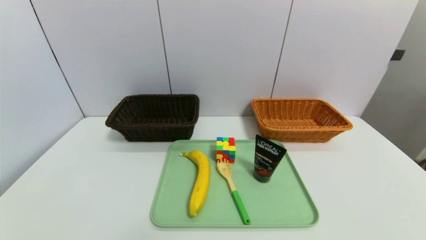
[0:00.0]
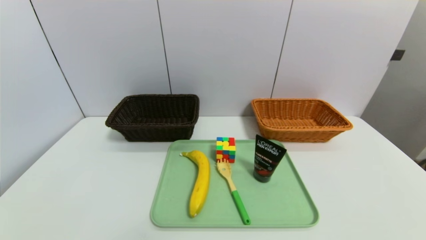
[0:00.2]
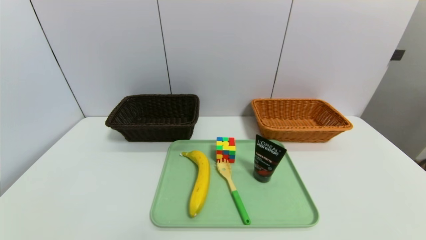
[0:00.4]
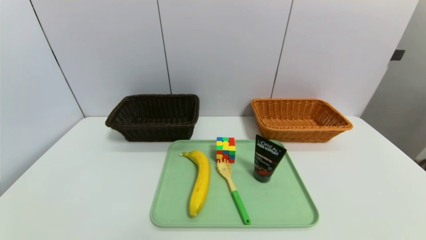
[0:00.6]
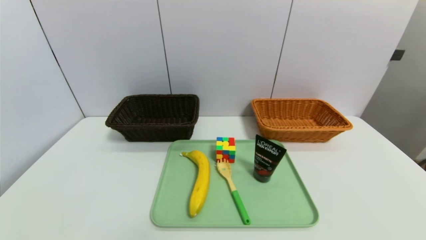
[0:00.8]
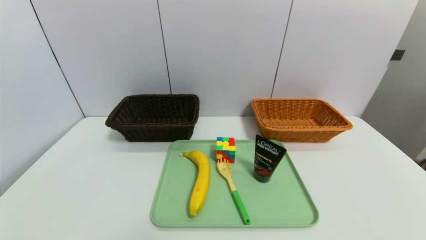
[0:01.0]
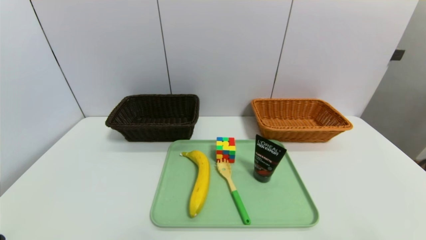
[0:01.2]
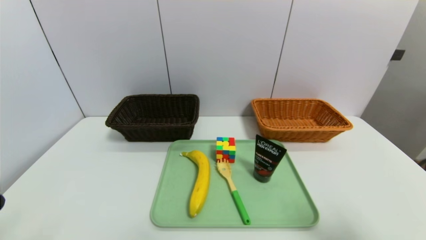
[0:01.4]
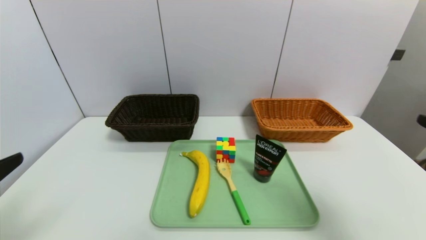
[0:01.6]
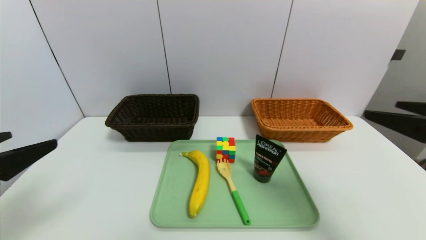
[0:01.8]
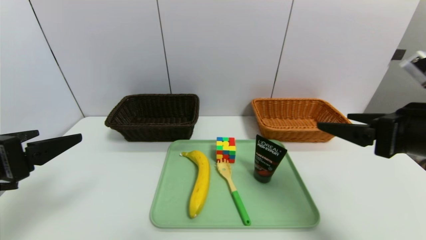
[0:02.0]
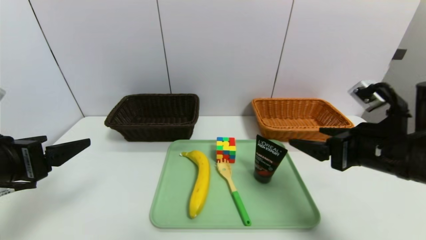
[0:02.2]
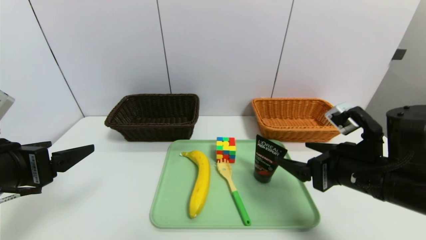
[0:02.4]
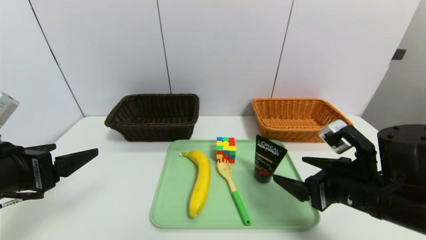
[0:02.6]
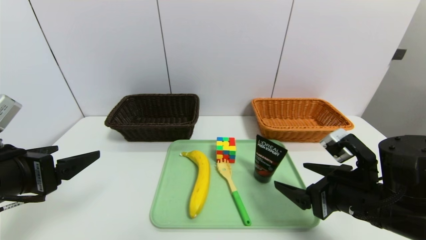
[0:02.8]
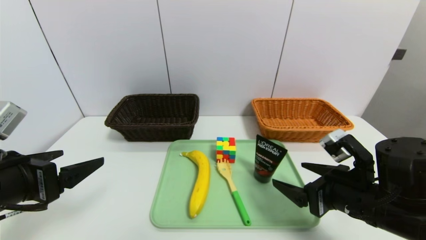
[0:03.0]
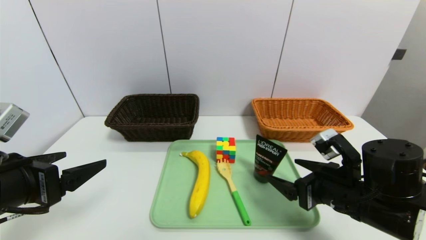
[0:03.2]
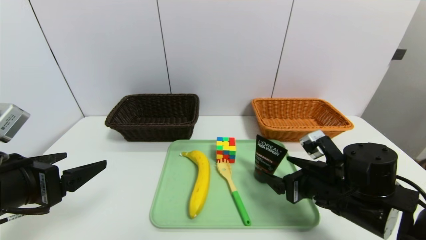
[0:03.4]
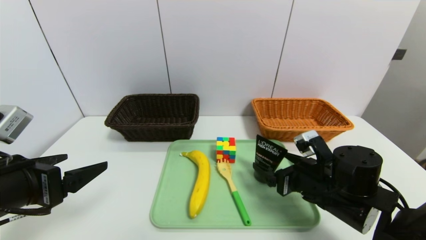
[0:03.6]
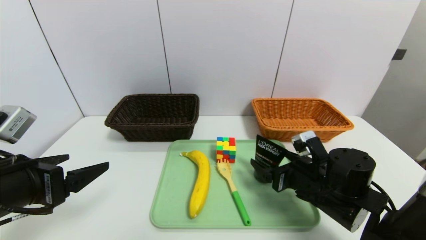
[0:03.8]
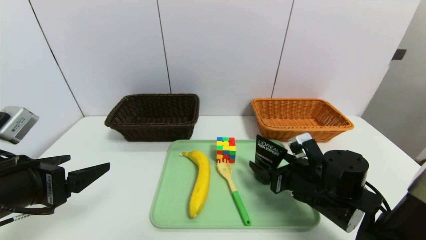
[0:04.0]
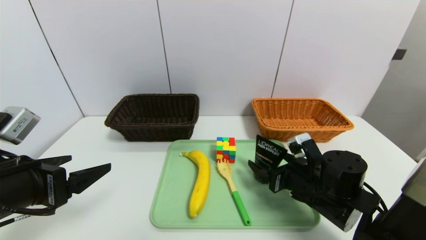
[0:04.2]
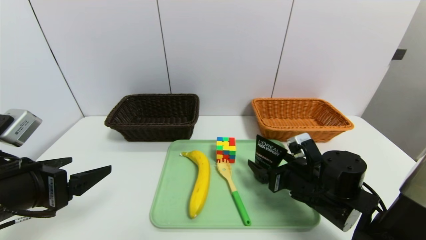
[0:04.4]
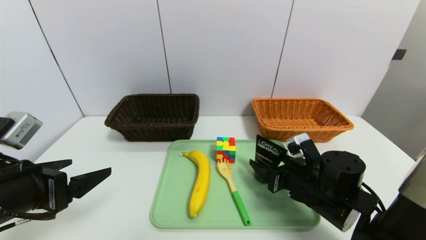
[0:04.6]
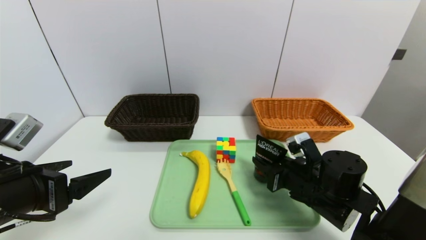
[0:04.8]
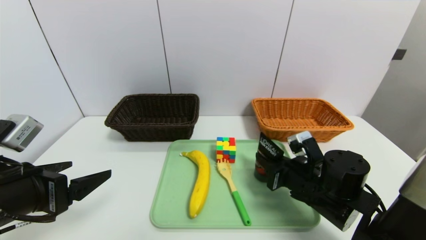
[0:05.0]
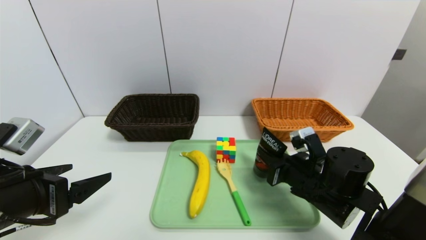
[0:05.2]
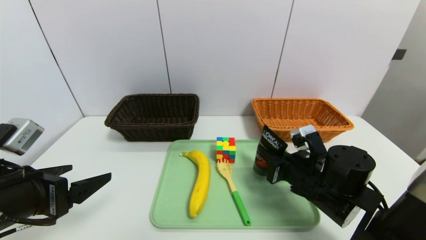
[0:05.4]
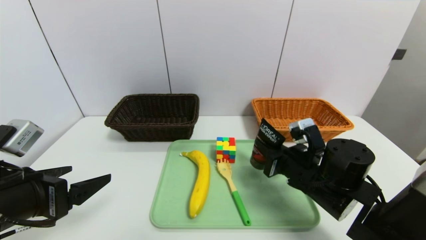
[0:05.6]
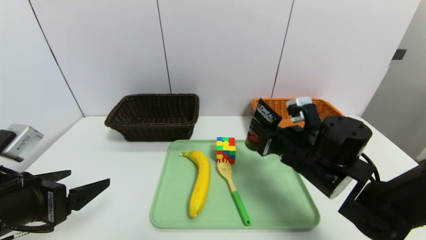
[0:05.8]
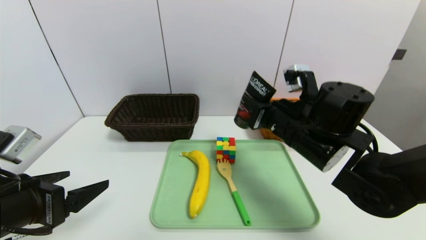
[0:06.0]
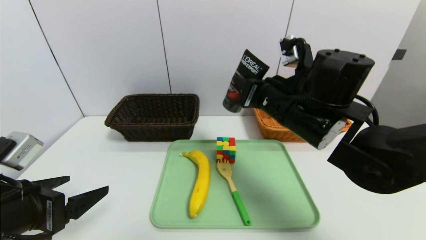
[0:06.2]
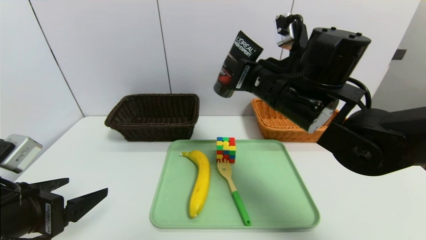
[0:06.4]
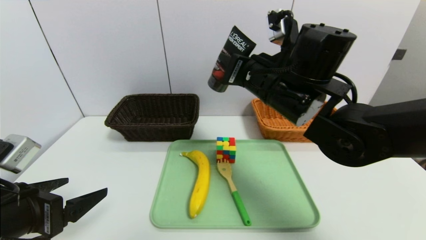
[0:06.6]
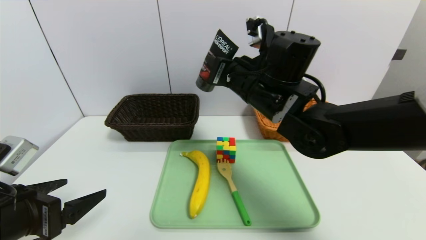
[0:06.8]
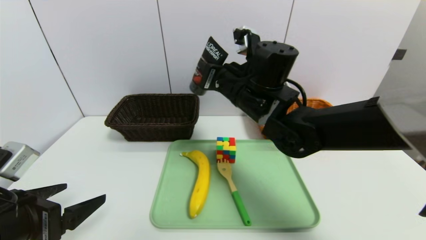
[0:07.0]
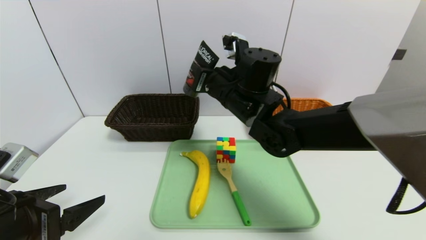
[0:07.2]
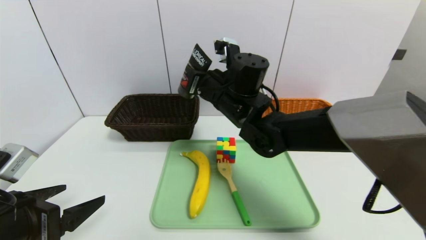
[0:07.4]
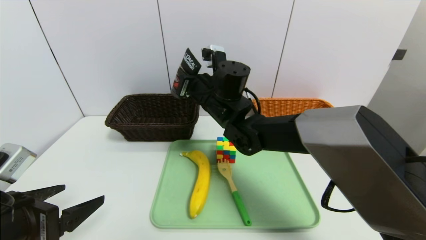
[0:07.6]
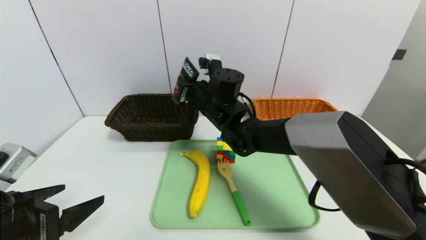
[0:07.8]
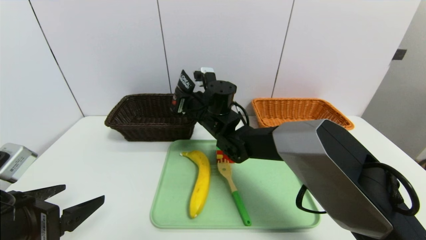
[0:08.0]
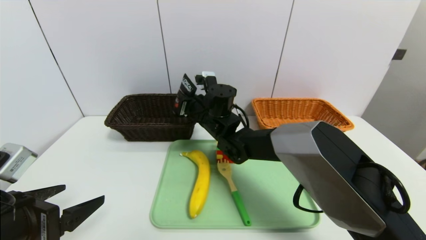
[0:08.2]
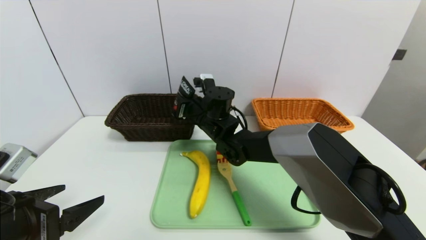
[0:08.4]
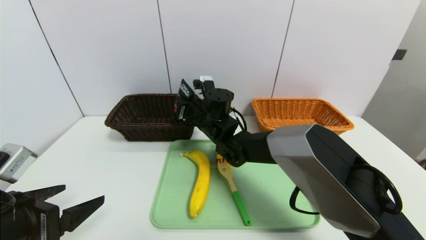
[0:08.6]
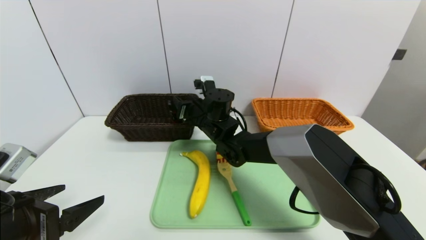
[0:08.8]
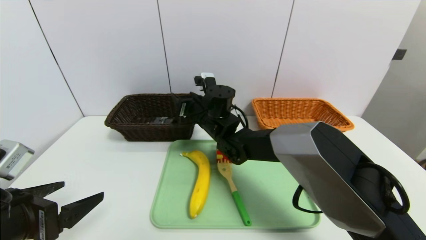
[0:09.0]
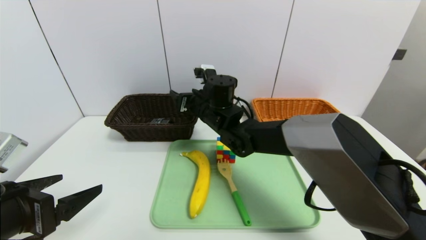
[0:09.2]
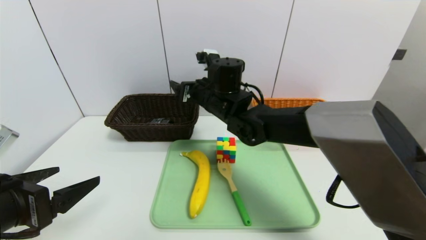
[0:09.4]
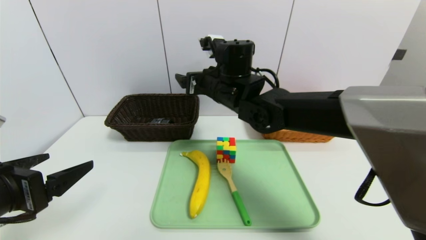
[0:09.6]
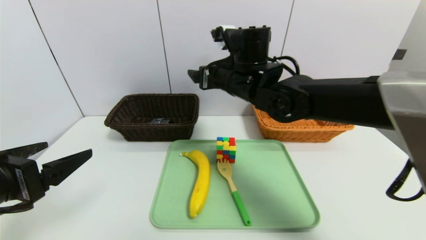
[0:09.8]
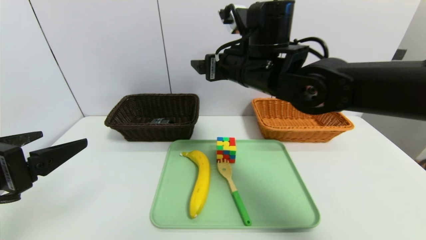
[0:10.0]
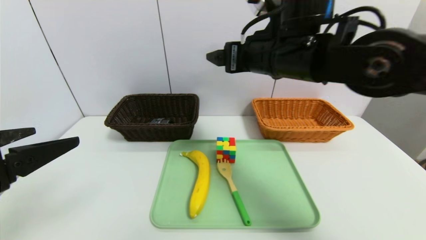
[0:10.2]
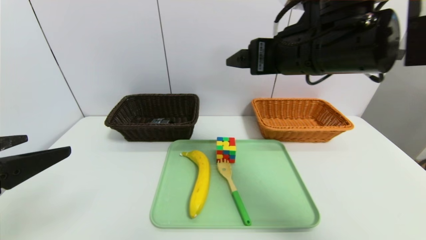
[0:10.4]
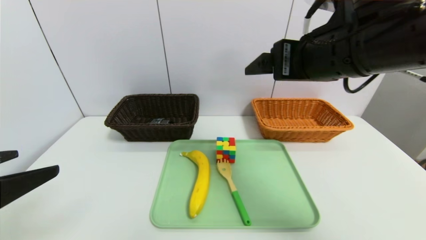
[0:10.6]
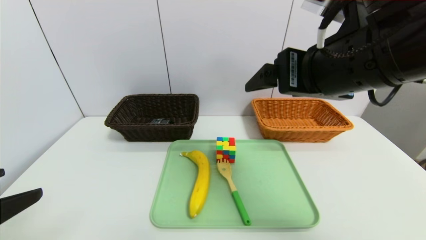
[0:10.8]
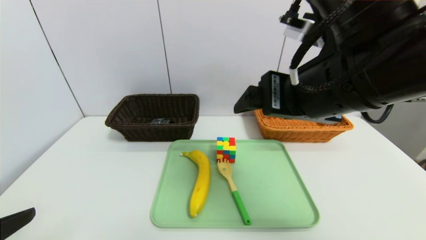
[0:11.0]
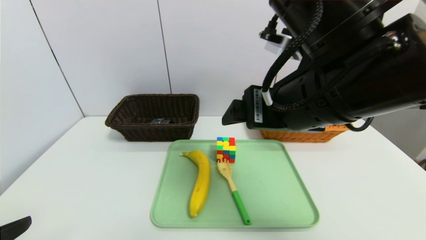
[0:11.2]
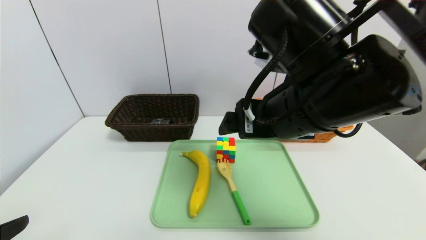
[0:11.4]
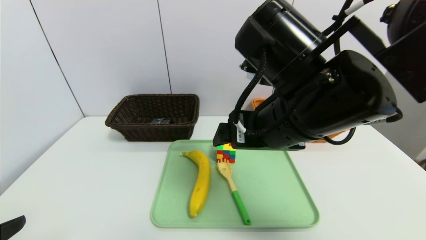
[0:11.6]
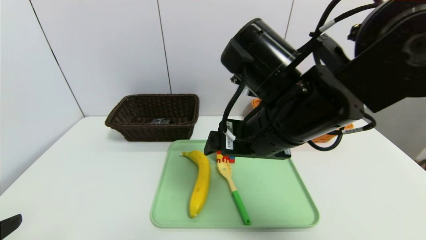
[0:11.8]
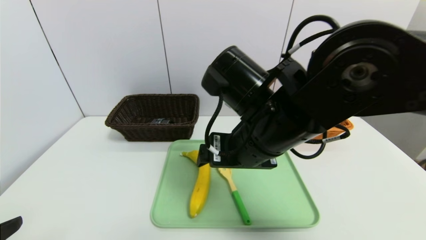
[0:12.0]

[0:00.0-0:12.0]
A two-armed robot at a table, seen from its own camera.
Task of the whole recording: place the food in the right basket with the right gripper, and place the non food items in the left basket with the left gripper.
Step, 0:00.0 to 0:09.4: Grasp the soft cleanser and put it in the left basket.
0:00.0 to 0:01.6: The left gripper travels upward by about 20 cm. Meanwhile the right gripper travels upward and forward by roughly 25 cm.
0:01.6 to 0:03.0: The right gripper shifts approximately 20 cm downward, to the left and forward; the left gripper heads forward, covering about 10 cm.
0:03.0 to 0:04.4: The right gripper goes some 10 cm downward and forward.
0:04.4 to 0:06.0: The right gripper goes some 10 cm upward, and closes up.
0:06.0 to 0:07.6: The right gripper heads to the left and forward, covering roughly 20 cm.
0:07.6 to 0:09.0: The right gripper is displaced downward by approximately 5 cm, and opens its fingers.
0:09.0 to 0:10.4: The right gripper shifts some 30 cm upward, to the right and backward, and opens its fingers; the left gripper shifts about 10 cm upward.
0:10.4 to 0:12.0: The right gripper is displaced downward and to the left by approximately 10 cm. The left gripper shifts approximately 5 cm backward.

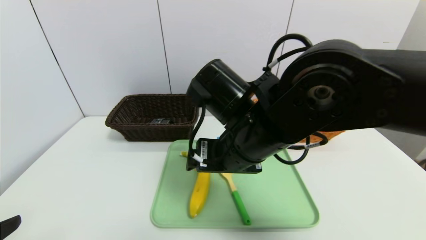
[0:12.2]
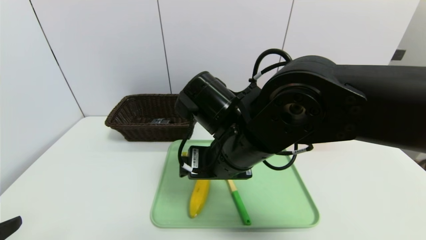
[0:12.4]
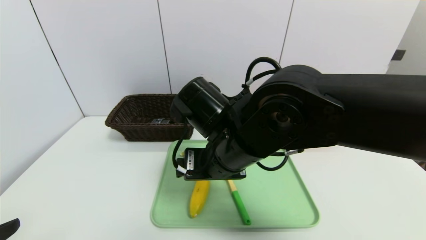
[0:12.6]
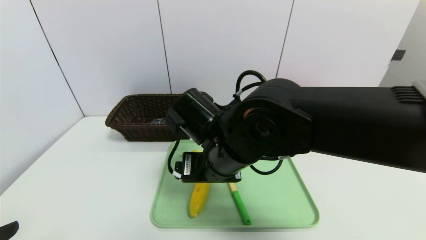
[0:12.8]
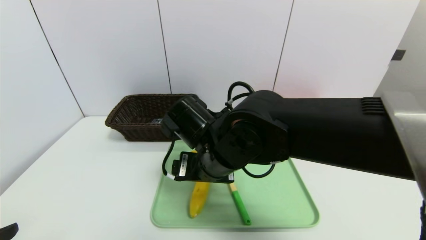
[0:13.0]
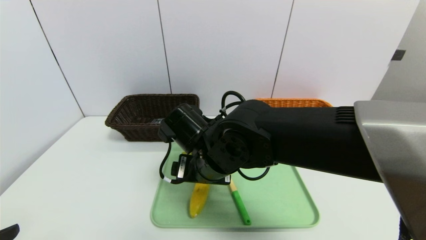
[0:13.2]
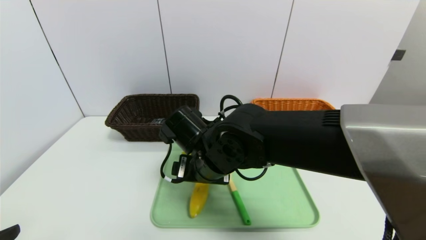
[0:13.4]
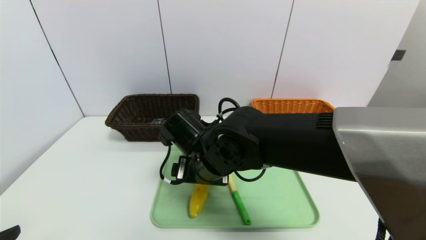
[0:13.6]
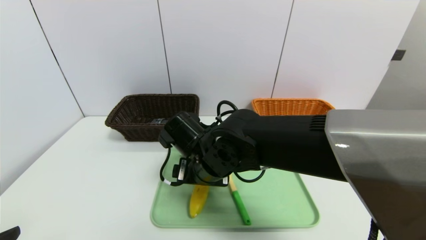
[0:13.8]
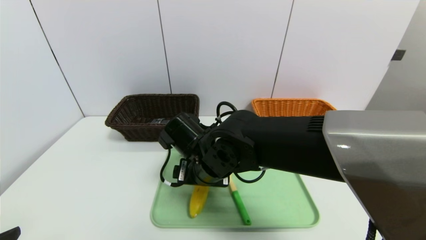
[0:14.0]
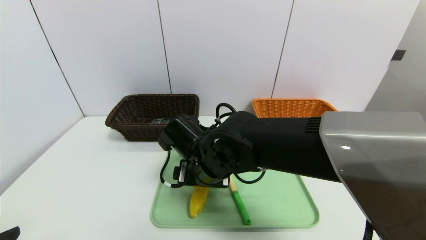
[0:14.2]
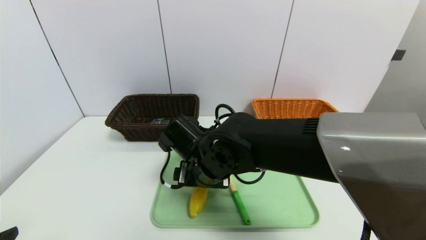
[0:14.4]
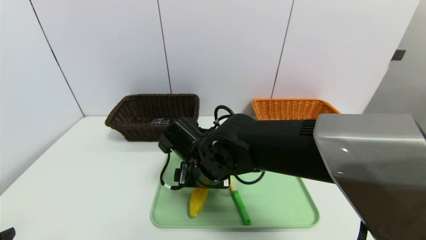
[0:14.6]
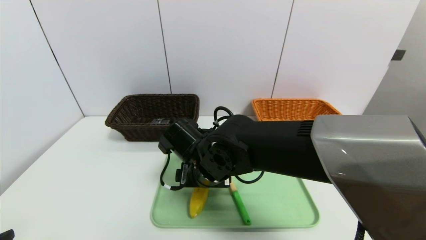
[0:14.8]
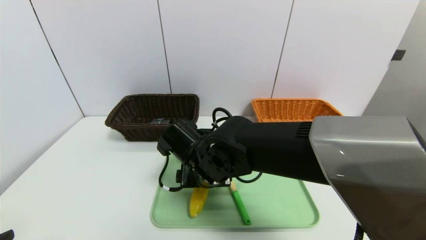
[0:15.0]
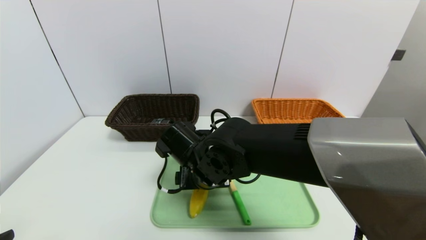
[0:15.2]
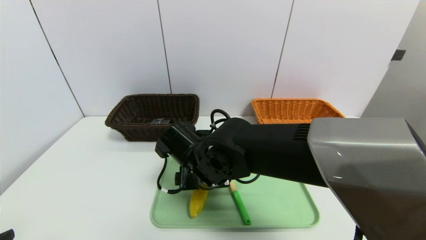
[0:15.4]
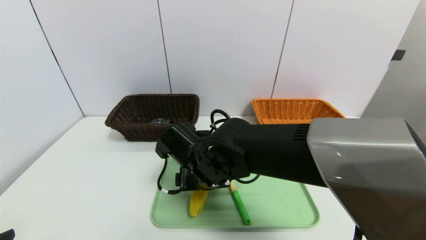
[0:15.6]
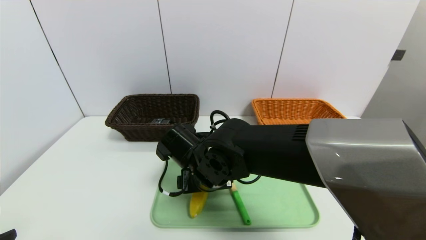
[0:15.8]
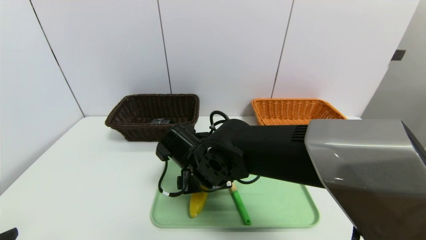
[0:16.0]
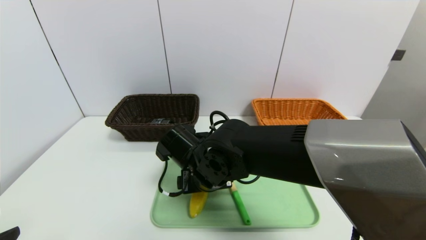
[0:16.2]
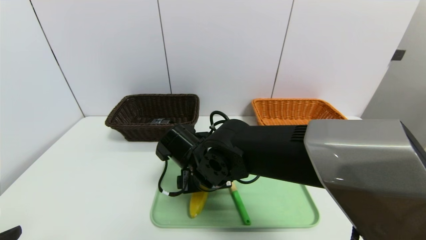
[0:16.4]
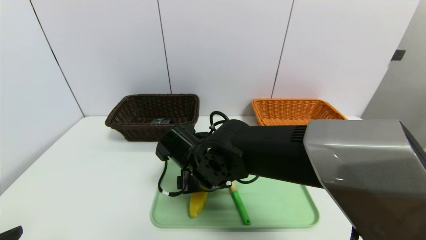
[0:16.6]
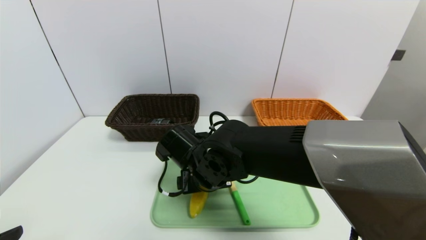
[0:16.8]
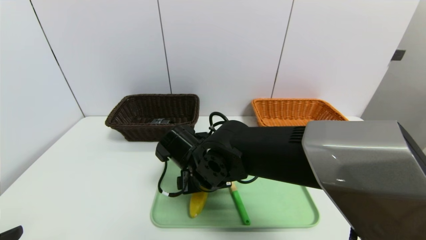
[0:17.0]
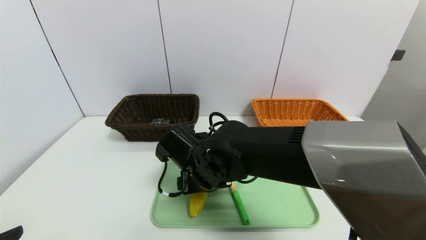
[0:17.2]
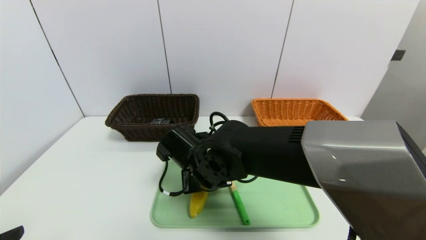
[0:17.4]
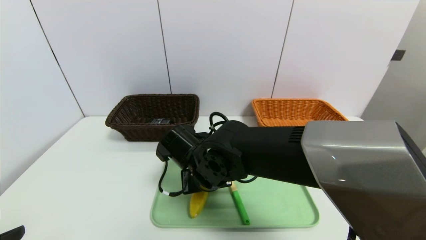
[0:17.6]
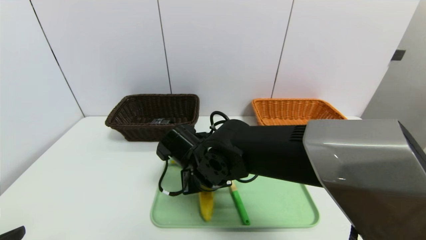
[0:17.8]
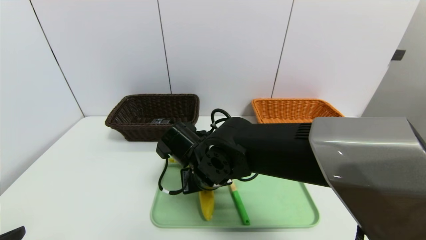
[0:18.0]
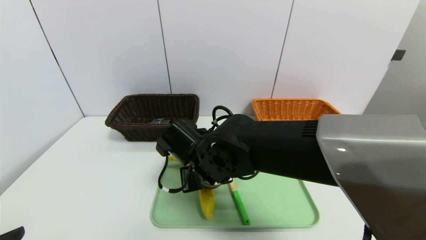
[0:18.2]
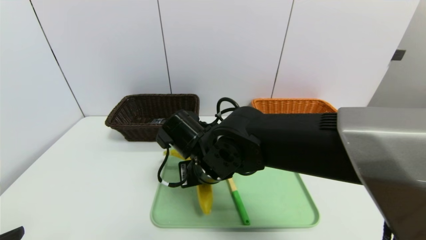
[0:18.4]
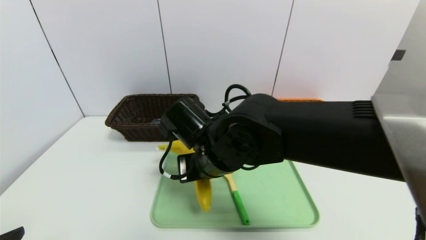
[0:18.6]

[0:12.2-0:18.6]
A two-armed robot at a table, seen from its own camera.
Task of the whole recording: place the food in the right basket with the right gripper, and place the non food items in the left basket with the left gripper.
0:12.2 to 0:13.8: The right gripper is displaced downward and to the left by about 10 cm.
0:13.8 to 0:15.4: The grippers stay close to where they were, moving slightly.
0:15.4 to 0:17.0: The two grippers keep their place.
0:17.0 to 0:18.6: The right gripper shifts approximately 5 cm upward, and closes.
